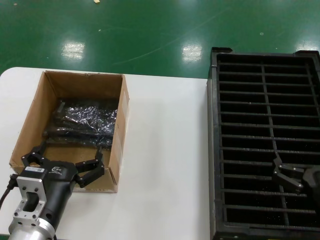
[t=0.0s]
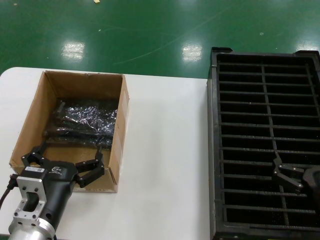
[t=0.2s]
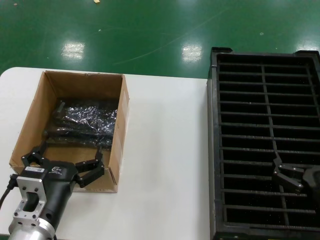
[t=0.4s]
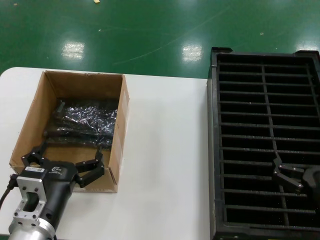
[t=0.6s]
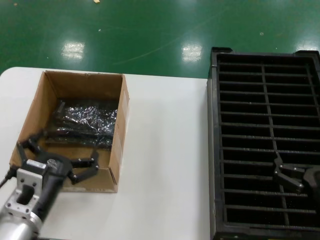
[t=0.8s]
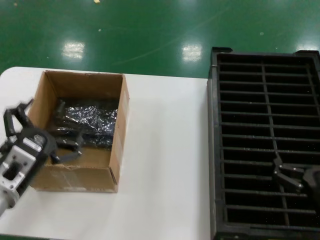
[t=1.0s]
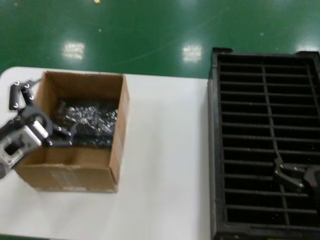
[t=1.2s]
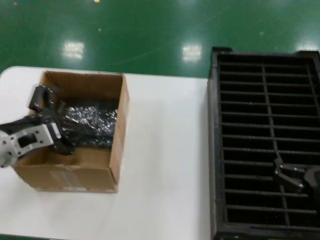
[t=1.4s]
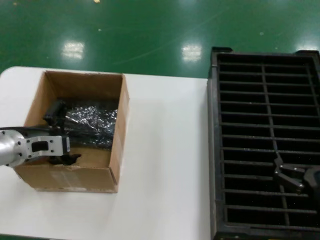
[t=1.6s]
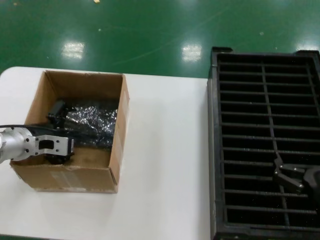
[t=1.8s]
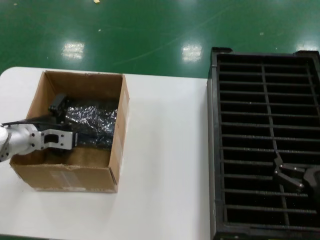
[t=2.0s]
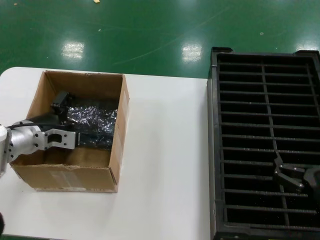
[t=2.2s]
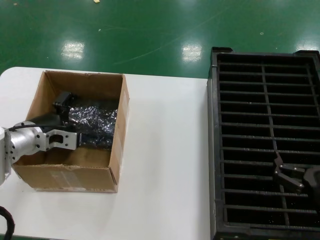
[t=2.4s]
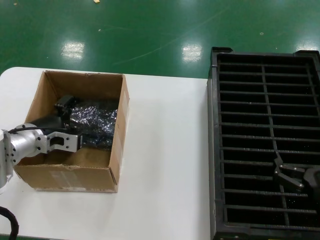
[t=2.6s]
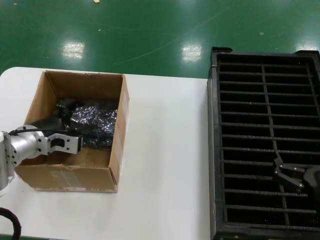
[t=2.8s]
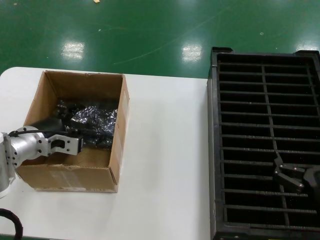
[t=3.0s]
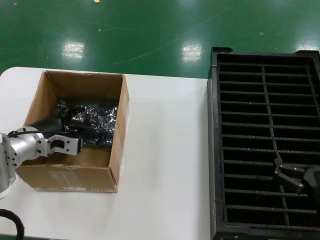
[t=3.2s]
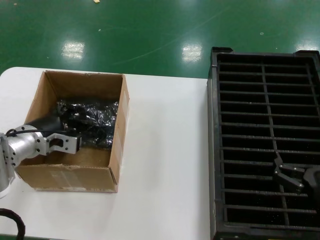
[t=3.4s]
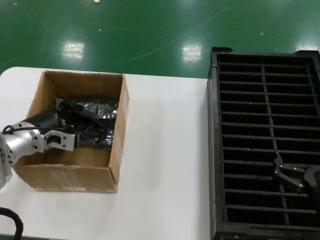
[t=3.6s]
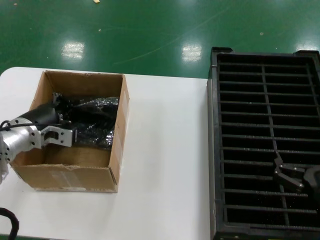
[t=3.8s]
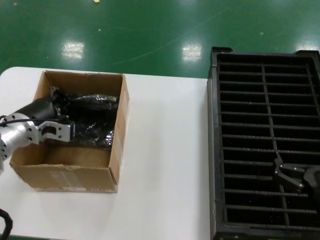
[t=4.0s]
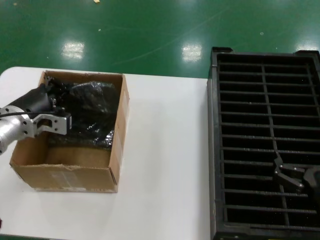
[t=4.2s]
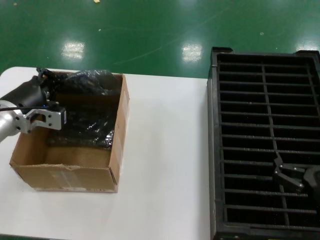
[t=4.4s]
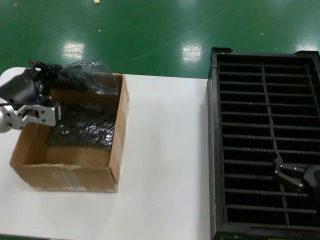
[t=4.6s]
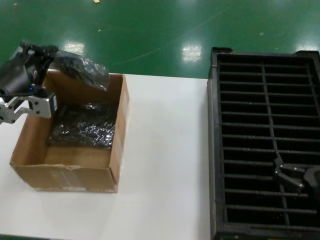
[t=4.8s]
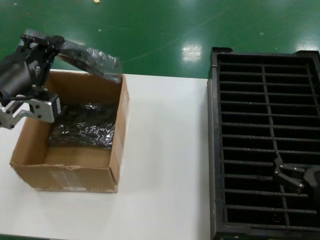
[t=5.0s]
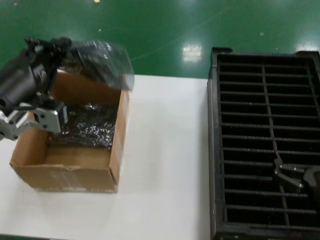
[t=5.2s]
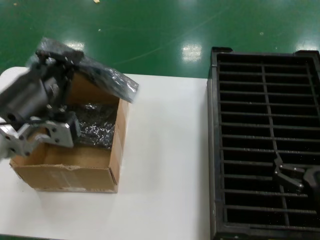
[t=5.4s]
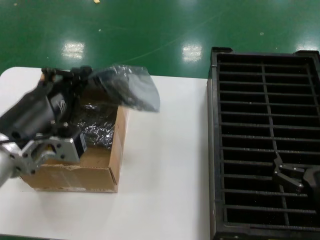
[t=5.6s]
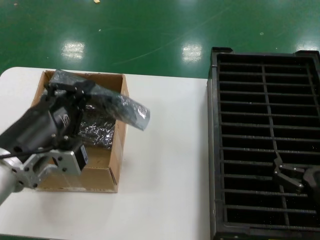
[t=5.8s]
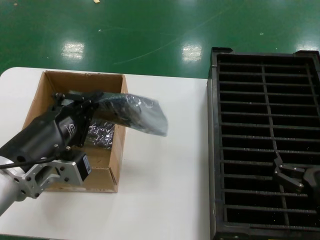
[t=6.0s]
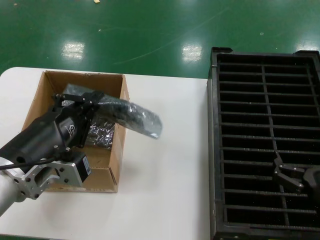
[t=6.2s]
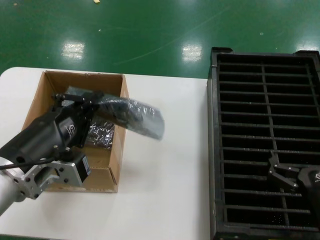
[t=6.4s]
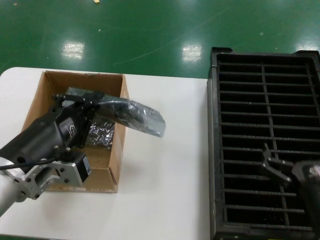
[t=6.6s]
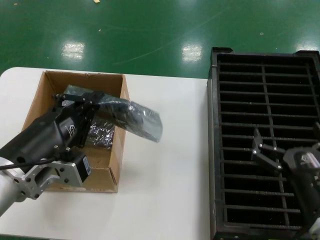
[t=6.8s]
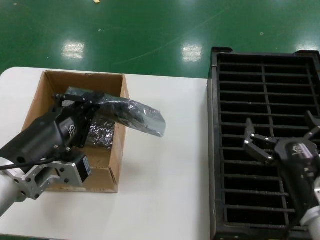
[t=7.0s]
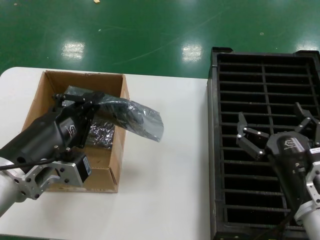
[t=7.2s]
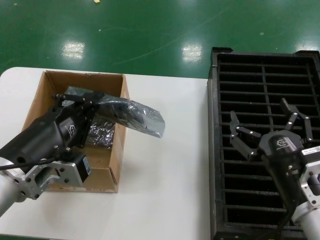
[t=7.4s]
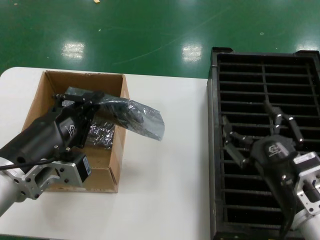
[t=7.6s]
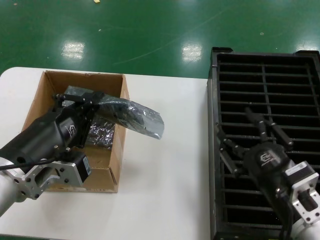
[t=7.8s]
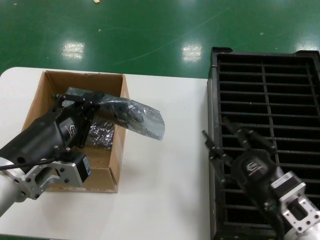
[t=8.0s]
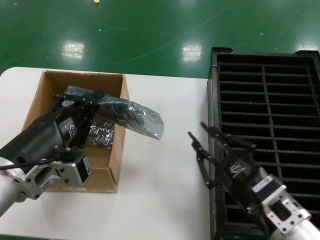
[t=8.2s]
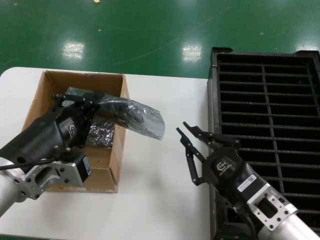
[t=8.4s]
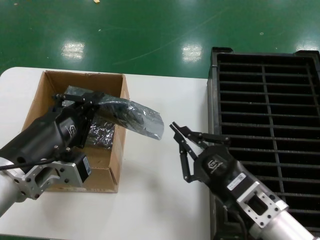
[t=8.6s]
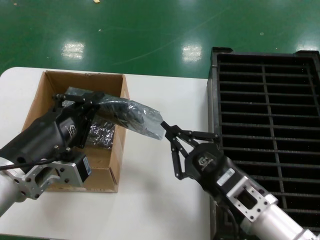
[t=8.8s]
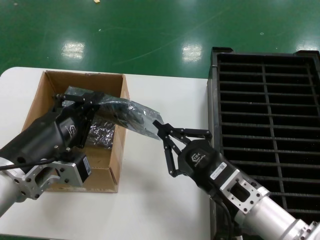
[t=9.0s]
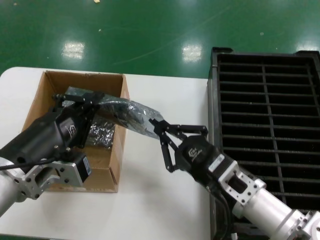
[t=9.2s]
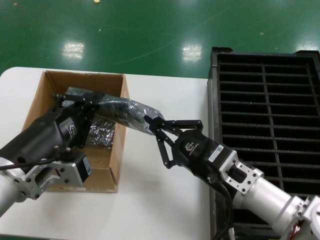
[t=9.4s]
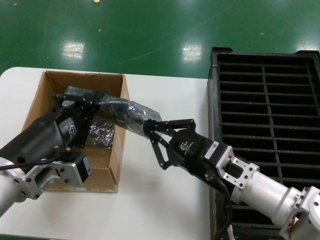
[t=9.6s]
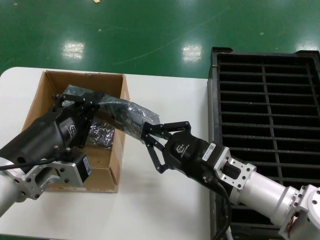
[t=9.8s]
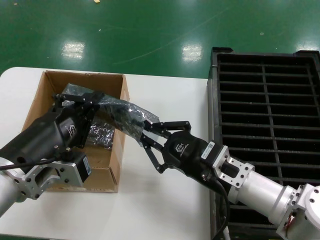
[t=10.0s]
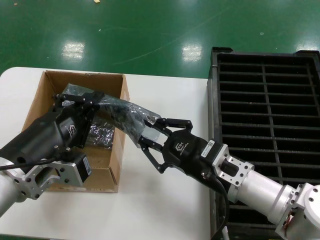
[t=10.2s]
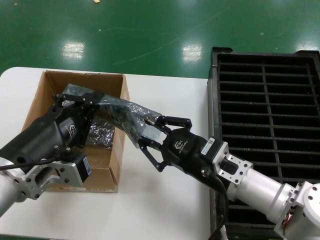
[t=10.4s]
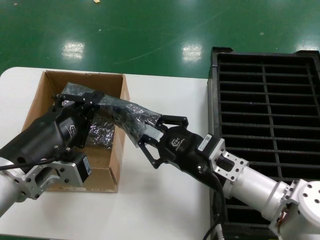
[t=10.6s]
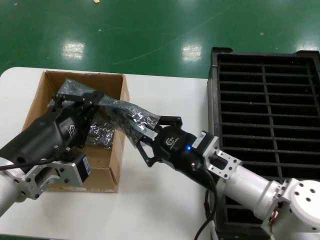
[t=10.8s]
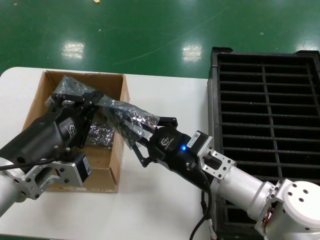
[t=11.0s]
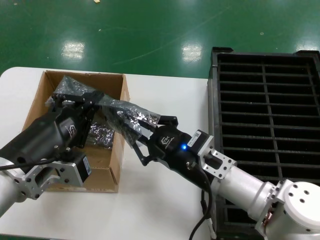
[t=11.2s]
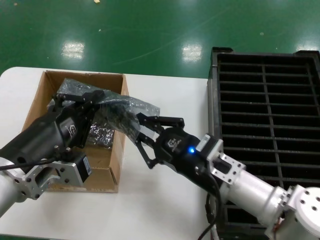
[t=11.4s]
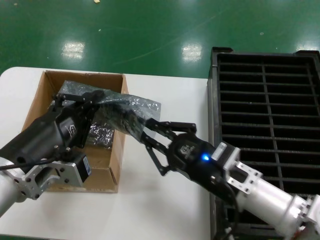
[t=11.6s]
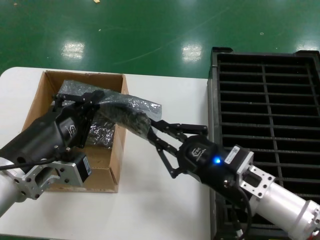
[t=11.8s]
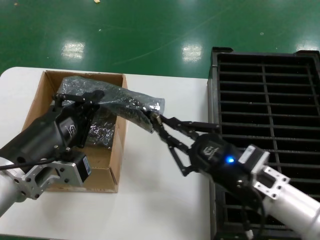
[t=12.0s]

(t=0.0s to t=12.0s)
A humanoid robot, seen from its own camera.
Task of the whole recording: take out graphics card from box remove packaging put into black container.
Step, t=0.0s - t=3.4s: Grasp the bag.
Step, t=3.6s - t=6.0s: Lift the bag.
t=0.0s - t=1.6s: The left hand shifts roughly 20 cm forward, to the left and upward.
t=1.6s - t=3.0s: The left hand is displaced forward by roughly 5 cm.
t=3.0s - t=4.4s: The left hand travels upward by roughly 5 cm.
t=4.4s - t=6.0s: The left hand travels backward and to the right by roughly 20 cm.
t=6.0s - t=7.6s: The right hand travels to the left by approximately 5 cm.
t=7.6s - t=9.0s: The right hand moves to the left, approximately 5 cm.
t=9.0s - t=10.4s: The right hand is displaced forward by roughly 5 cm.
t=10.4s - t=12.0s: The right hand changes place by roughly 5 cm.

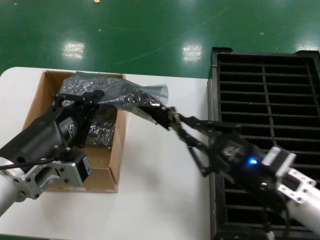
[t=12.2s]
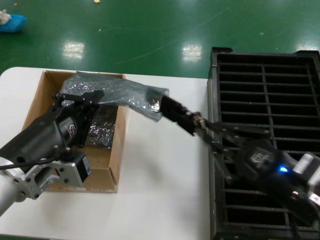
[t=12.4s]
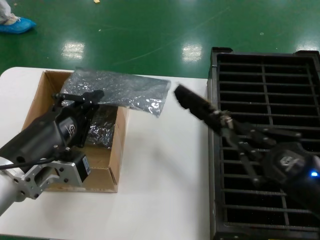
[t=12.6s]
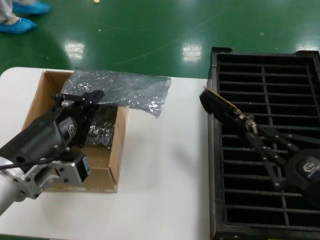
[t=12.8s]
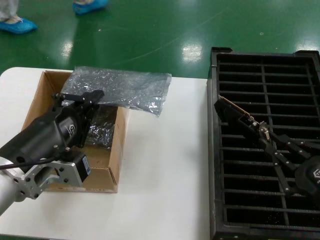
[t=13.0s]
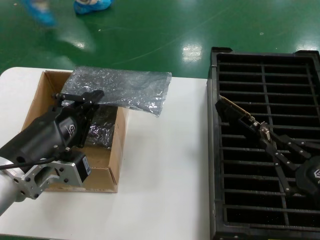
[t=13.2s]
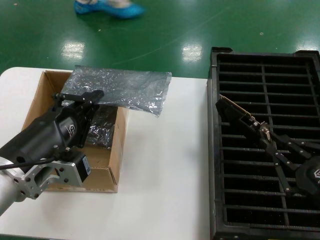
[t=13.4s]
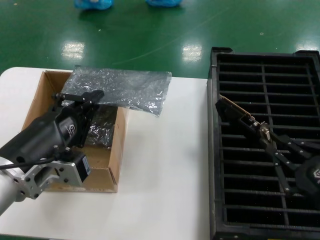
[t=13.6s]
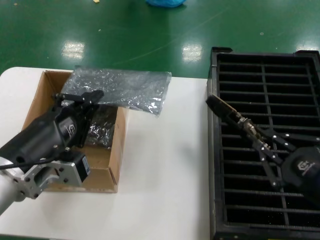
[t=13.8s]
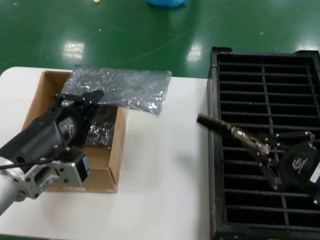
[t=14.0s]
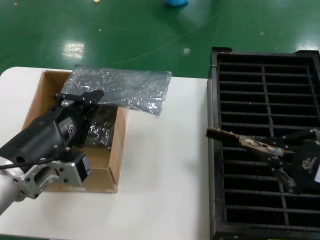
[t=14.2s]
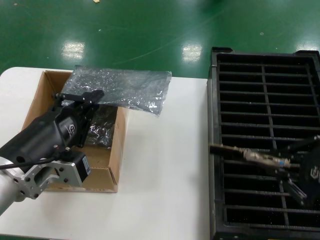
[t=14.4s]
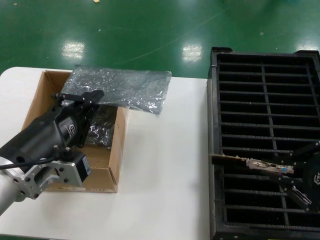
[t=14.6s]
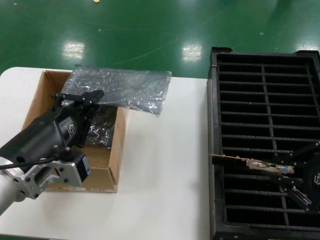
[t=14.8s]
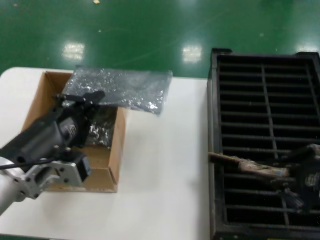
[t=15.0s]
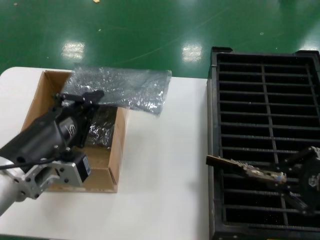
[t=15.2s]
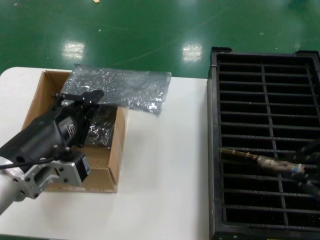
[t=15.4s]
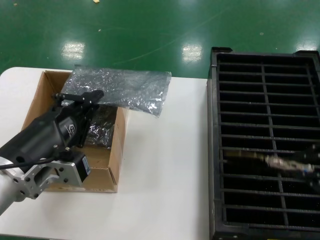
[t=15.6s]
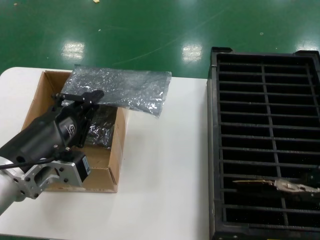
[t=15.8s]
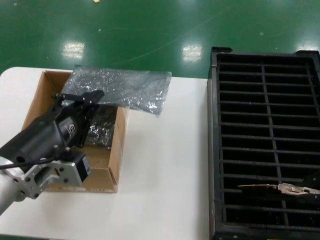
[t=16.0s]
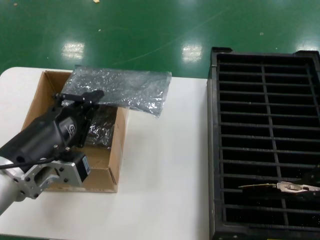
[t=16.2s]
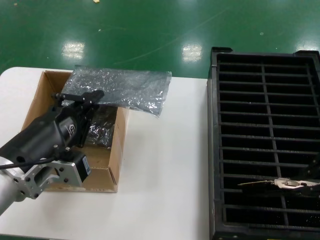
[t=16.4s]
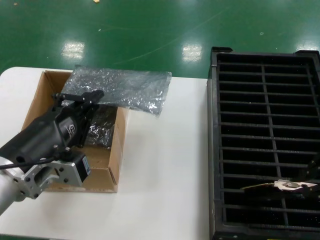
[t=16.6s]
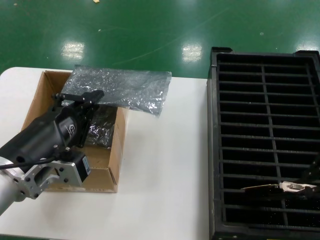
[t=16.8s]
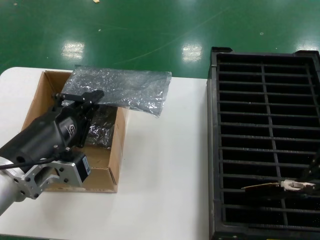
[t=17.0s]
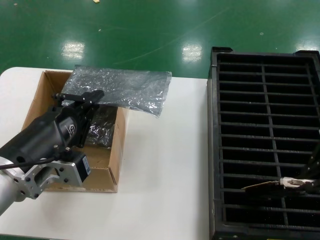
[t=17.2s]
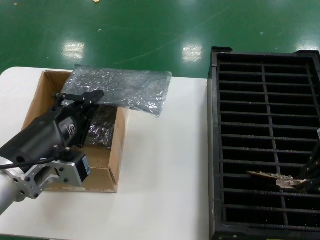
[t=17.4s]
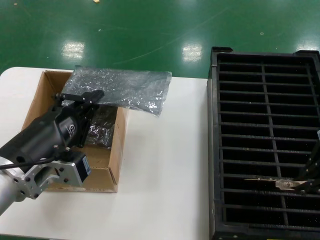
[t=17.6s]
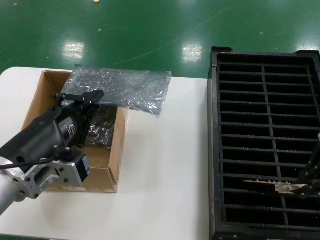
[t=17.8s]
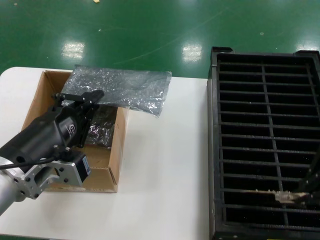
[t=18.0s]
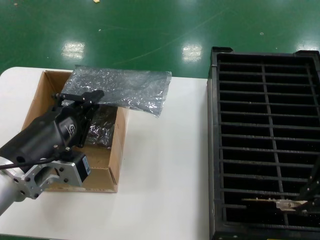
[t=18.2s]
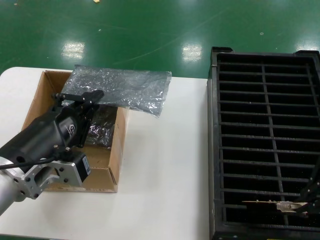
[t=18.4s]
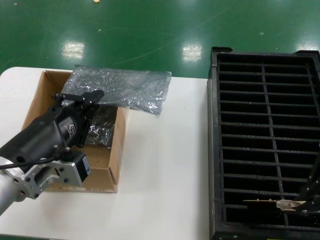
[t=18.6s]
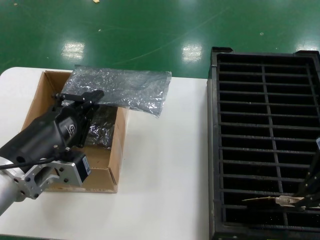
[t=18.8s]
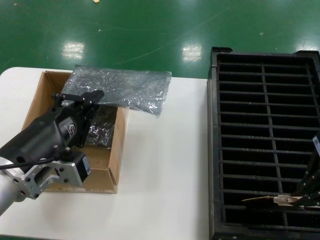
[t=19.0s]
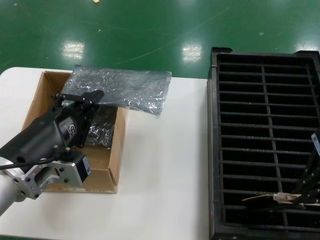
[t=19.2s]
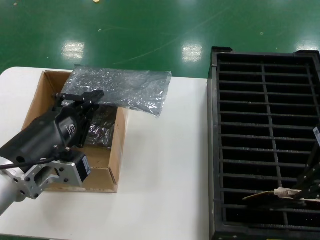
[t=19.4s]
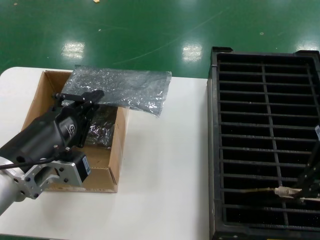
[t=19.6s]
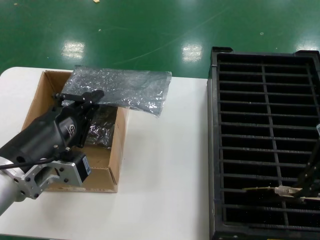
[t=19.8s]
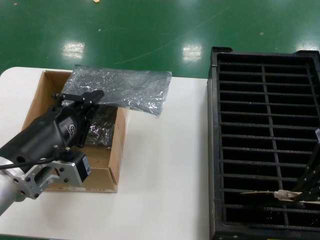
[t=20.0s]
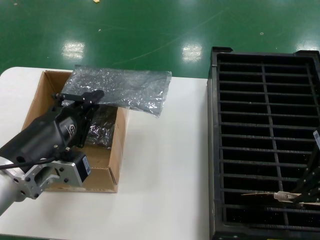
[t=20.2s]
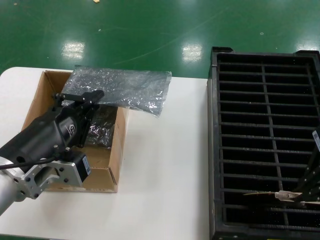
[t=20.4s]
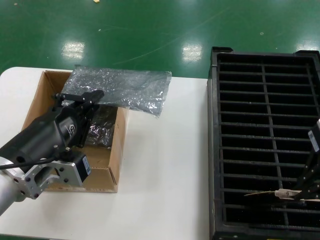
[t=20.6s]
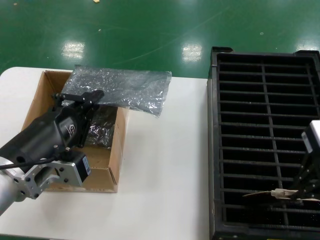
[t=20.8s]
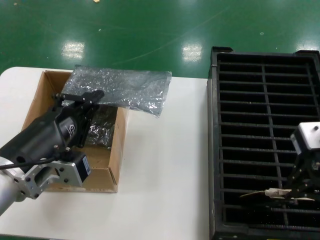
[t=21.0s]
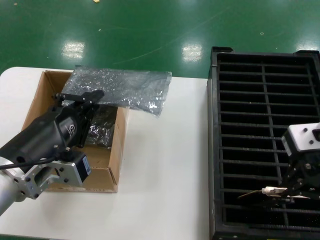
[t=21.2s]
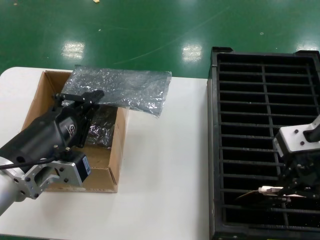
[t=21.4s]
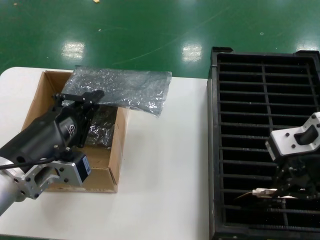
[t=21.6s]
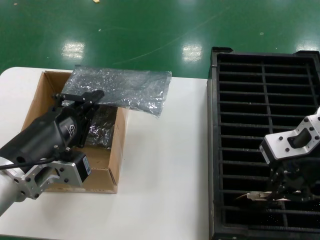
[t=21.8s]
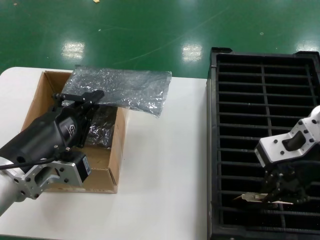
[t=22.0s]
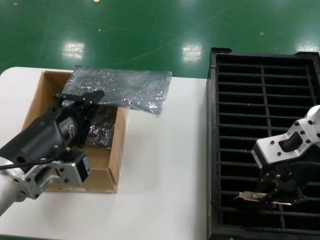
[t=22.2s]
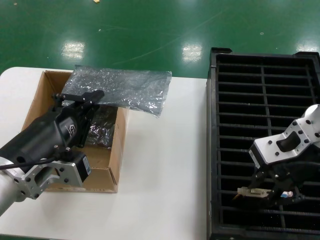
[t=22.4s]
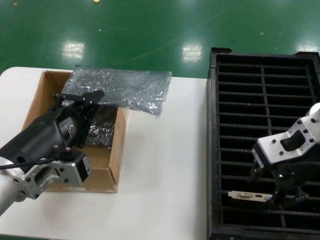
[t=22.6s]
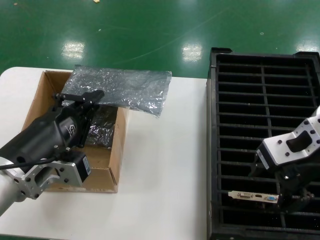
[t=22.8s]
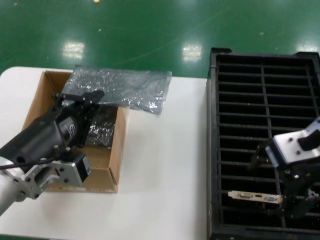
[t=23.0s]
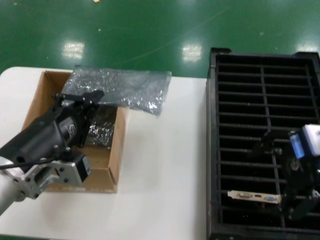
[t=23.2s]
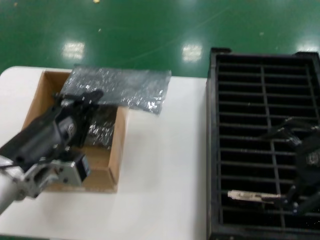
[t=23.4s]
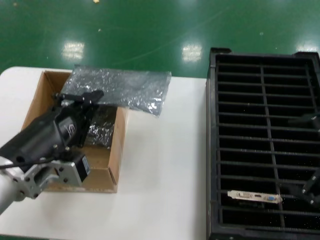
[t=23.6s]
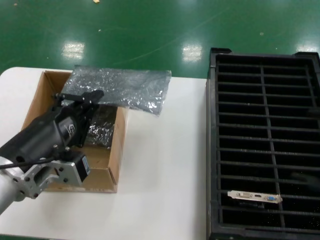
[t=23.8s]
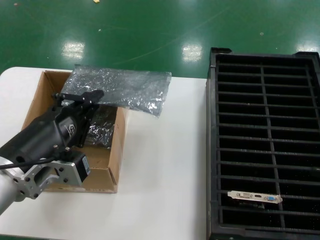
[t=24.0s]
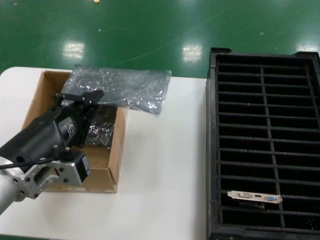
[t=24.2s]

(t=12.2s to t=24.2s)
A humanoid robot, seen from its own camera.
Task of the whole recording: take out graphics card from box remove packaging put into black container.
Step, t=12.8s - t=23.0s: Place the hard disk in the hard disk enclosure.
t=12.2s - t=13.8s: The right hand shifts some 10 cm to the right and backward.
t=13.8s - t=15.2s: The right hand goes about 10 cm upward.
t=15.2s - t=16.6s: The right hand shifts some 10 cm upward.
t=16.6s - t=19.8s: There are only small adjustments of the hands.
t=19.8s - t=21.2s: The right hand changes place by some 5 cm.
t=21.2s - t=22.6s: The hands stay close to where they were, moving slightly.
t=22.6s - t=24.2s: The right hand goes roughly 30 cm to the right.
